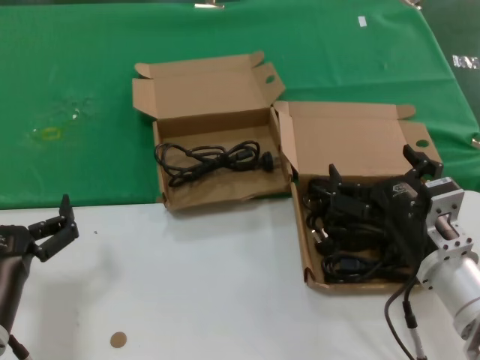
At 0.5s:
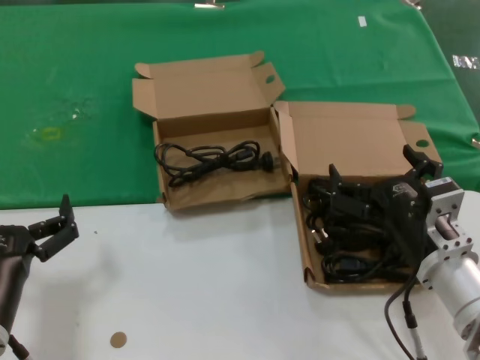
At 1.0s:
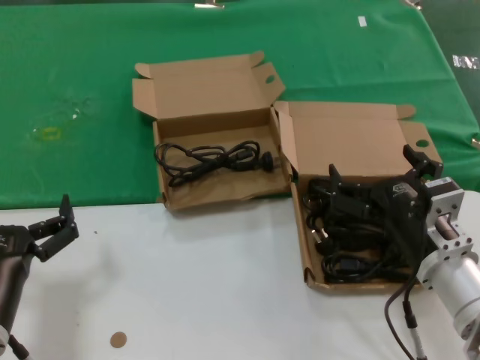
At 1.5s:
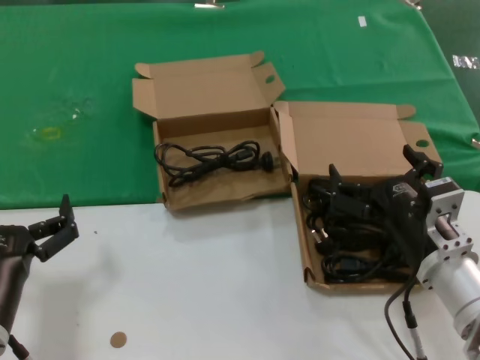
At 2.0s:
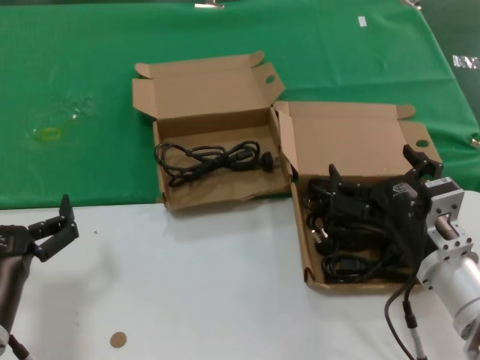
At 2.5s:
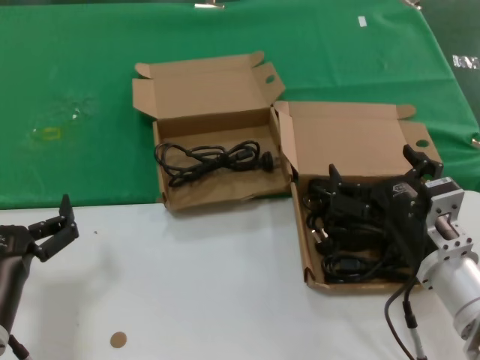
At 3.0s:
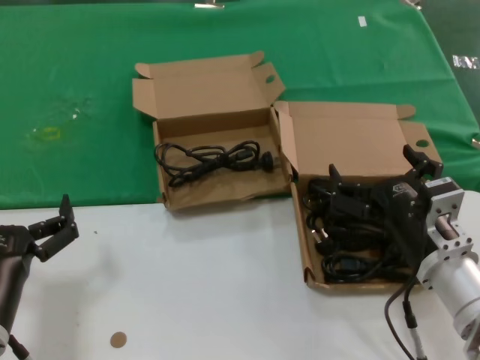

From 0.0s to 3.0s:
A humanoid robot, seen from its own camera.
Task of the whole recording: take the parts from the box containing them and put them into an empty box.
From 0.0s to 3.0s: Both hands stay put.

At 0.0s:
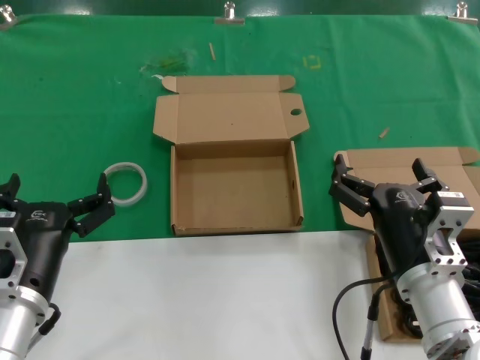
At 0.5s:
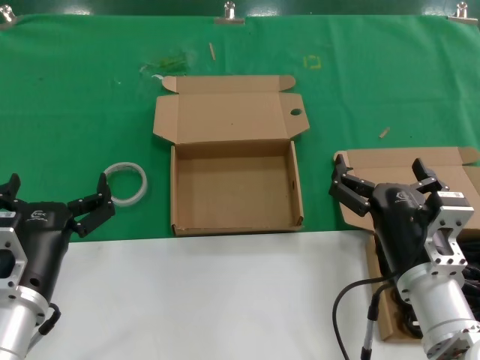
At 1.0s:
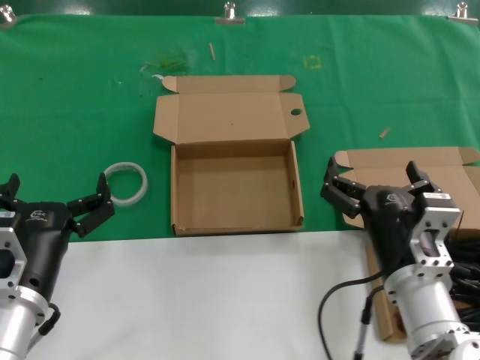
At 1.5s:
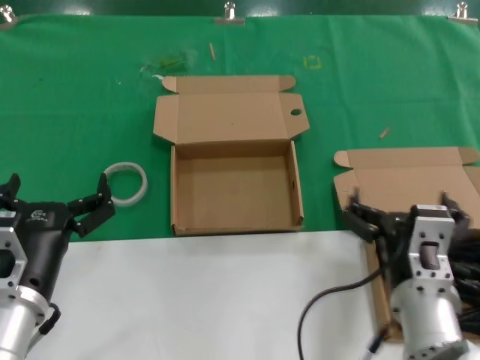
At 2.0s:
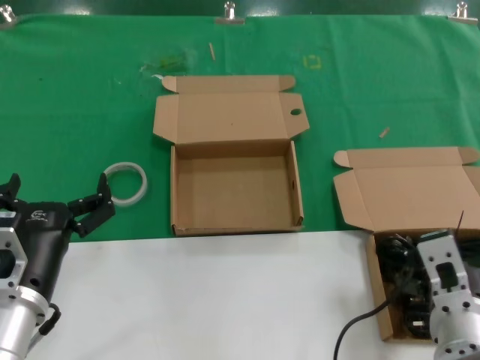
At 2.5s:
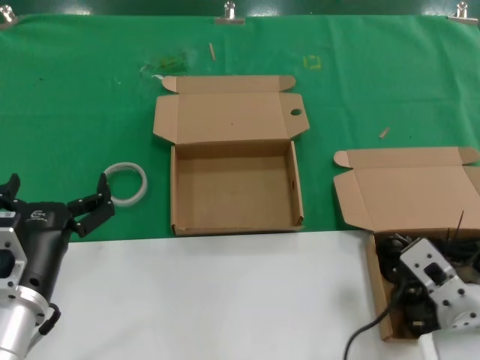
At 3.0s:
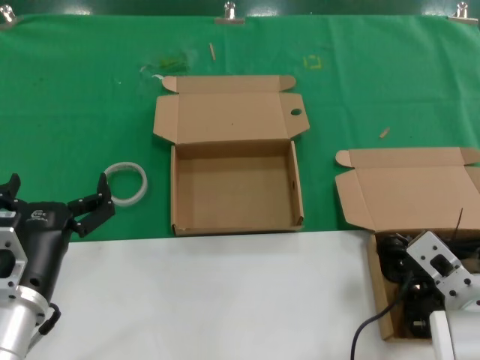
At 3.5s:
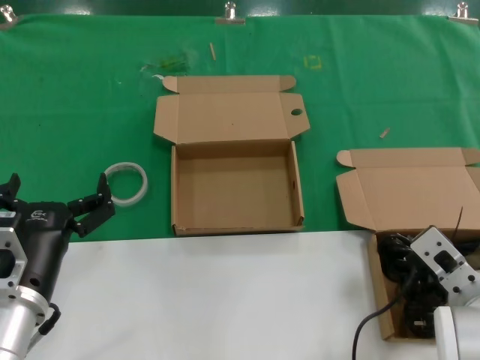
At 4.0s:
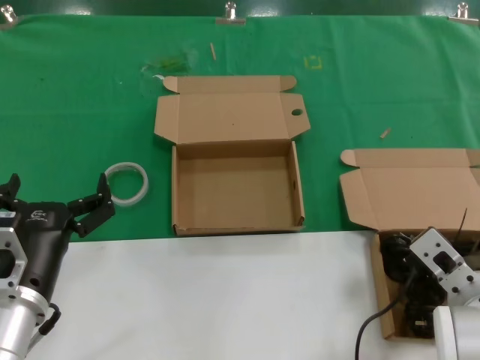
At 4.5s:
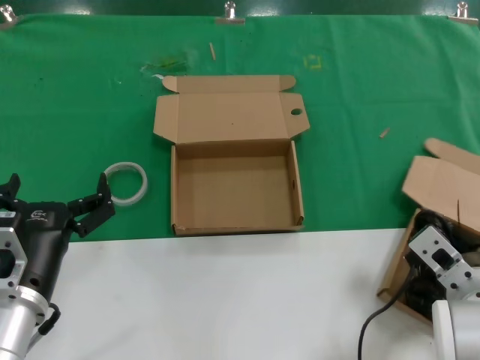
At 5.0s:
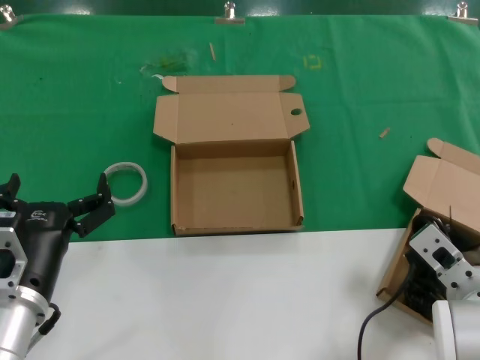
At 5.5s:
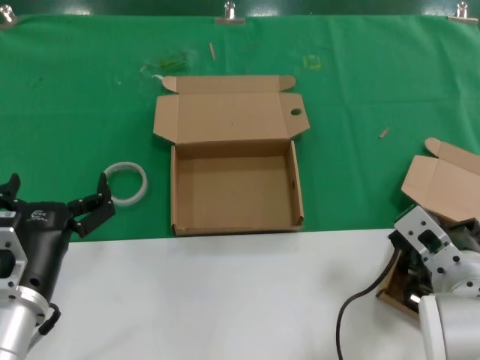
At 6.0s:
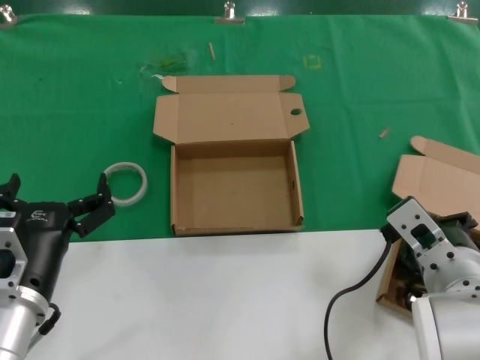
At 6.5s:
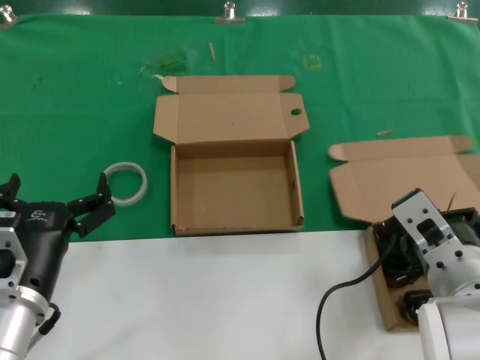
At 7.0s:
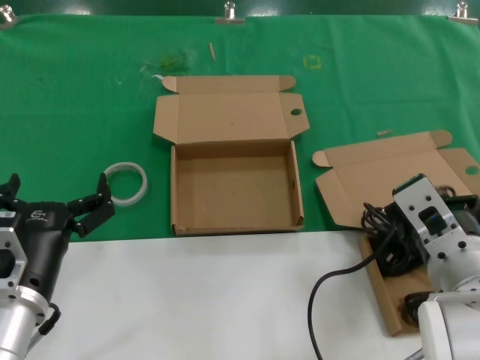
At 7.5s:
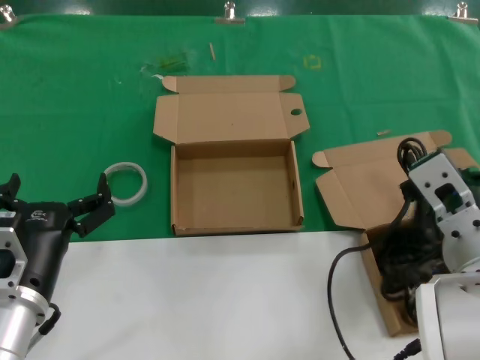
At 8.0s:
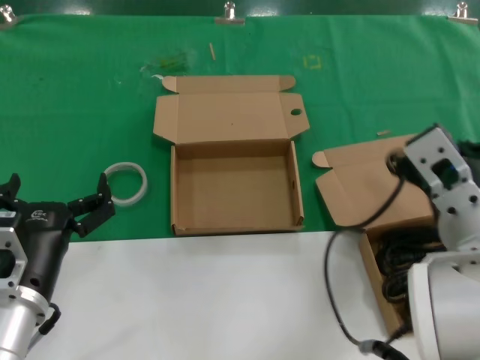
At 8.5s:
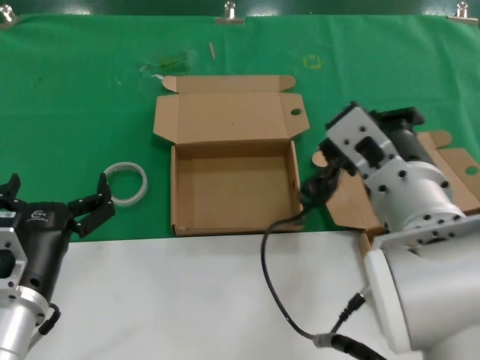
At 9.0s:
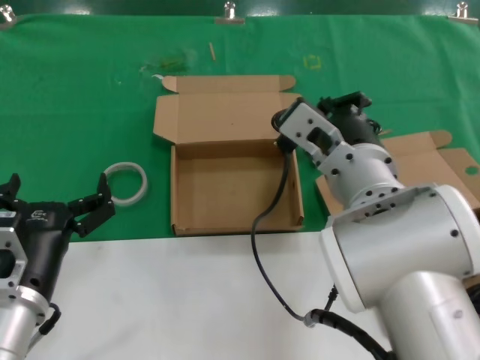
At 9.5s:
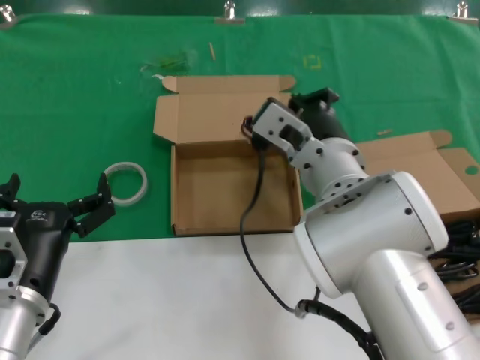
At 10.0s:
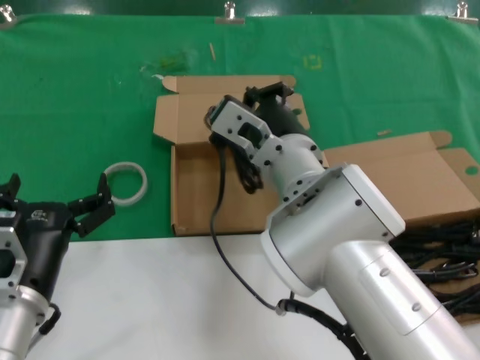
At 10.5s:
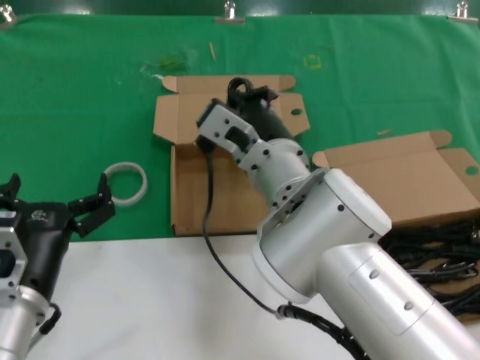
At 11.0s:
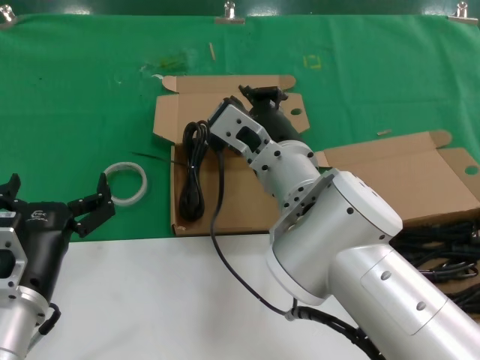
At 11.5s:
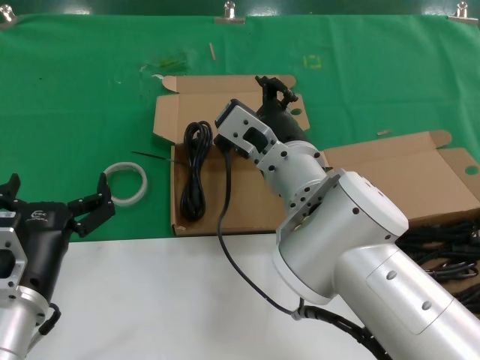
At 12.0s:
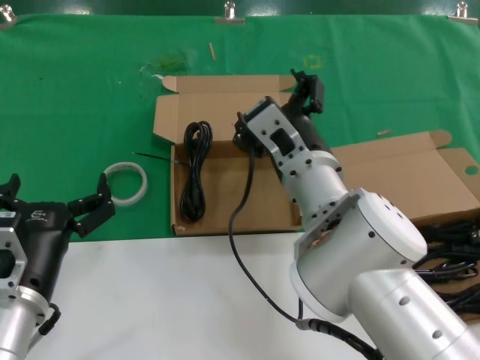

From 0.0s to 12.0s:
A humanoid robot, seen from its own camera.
Task of the whole recording: take the parts from the box containing them and put them into an empty box.
Step, from 0.0s to 4.5s: Grasp the data cable.
Step, from 5.0s to 10.5s: Place the data cable in the another box.
From 2.0s to 4.0s: The right hand changes place by approximately 5 cm.
From 4.0s to 6.0s: The right hand ends up about 5 cm from where it was.
From 6.0s to 8.0s: The right hand shifts approximately 10 cm upward.
From 8.0s to 10.0s: The right hand travels to the left and forward by approximately 15 cm.
From 10.0s to 12.0s: The hands make only small movements.

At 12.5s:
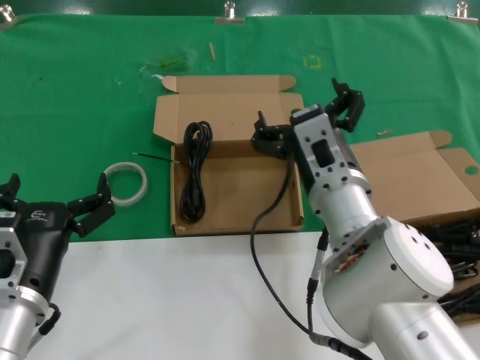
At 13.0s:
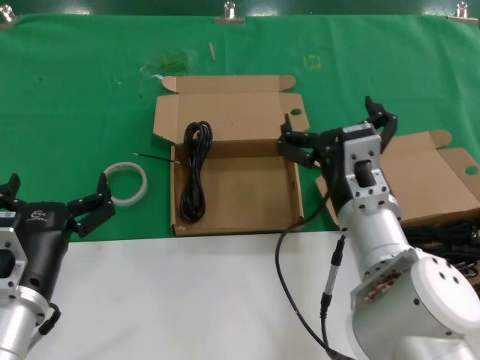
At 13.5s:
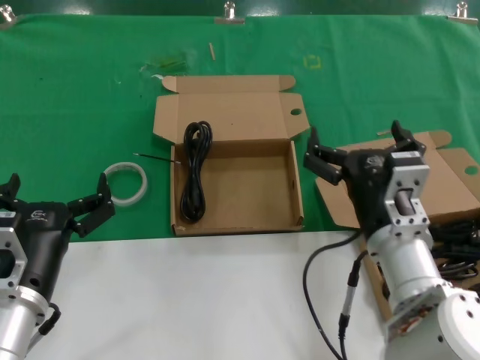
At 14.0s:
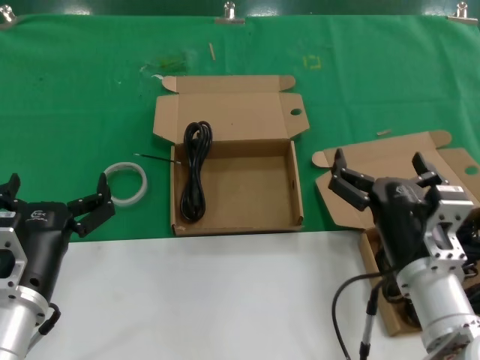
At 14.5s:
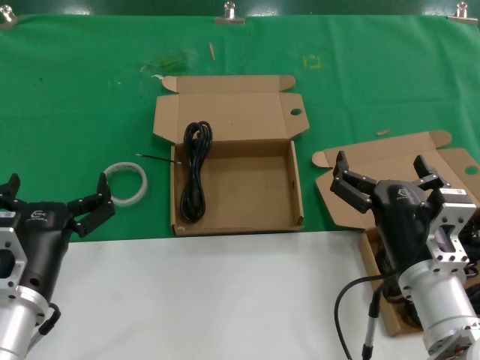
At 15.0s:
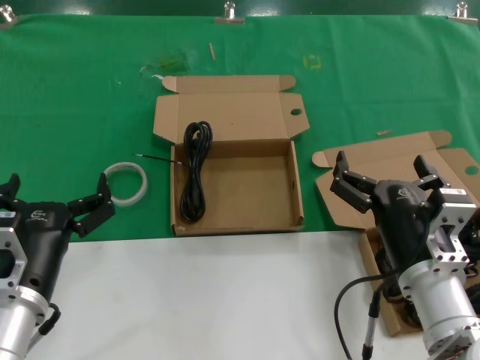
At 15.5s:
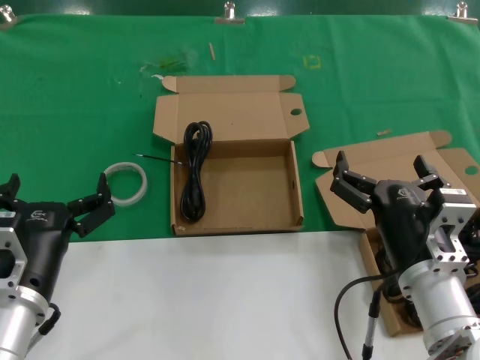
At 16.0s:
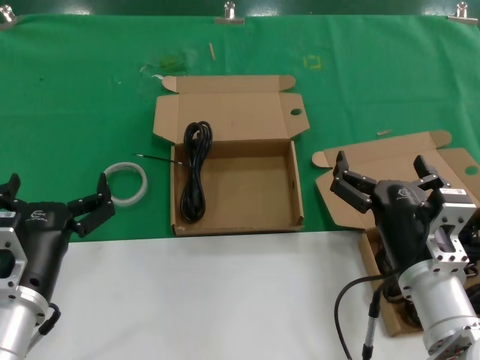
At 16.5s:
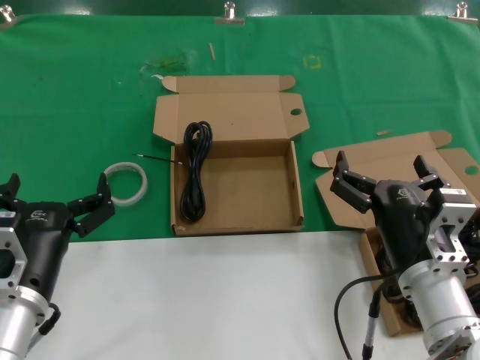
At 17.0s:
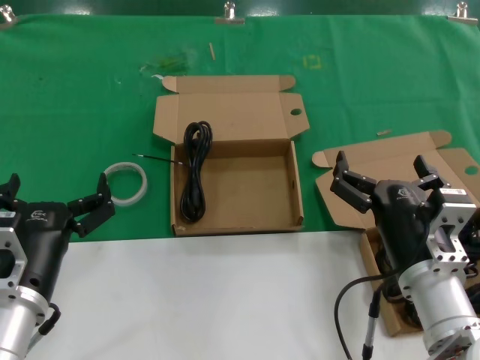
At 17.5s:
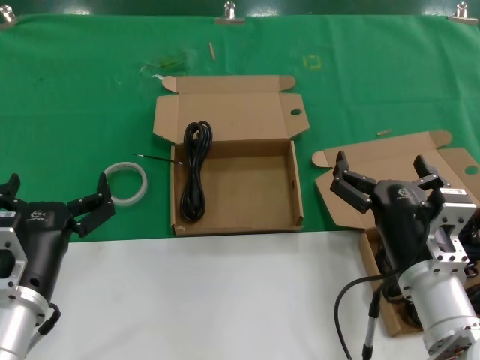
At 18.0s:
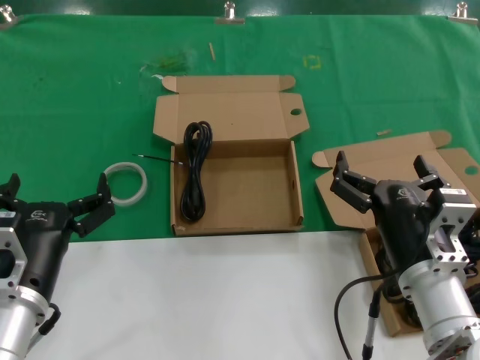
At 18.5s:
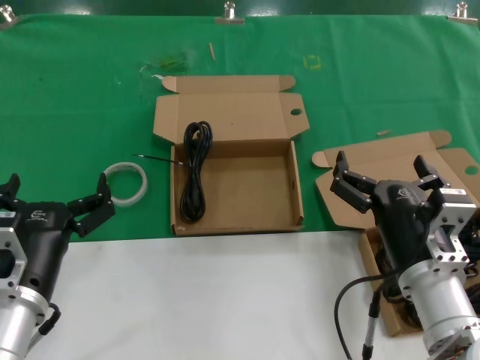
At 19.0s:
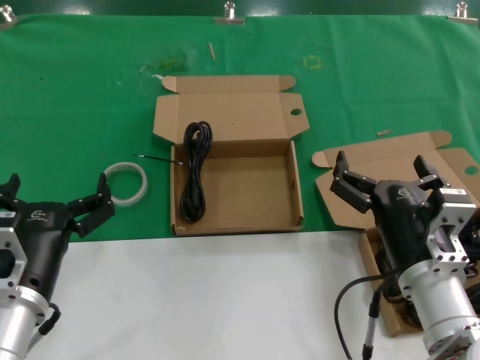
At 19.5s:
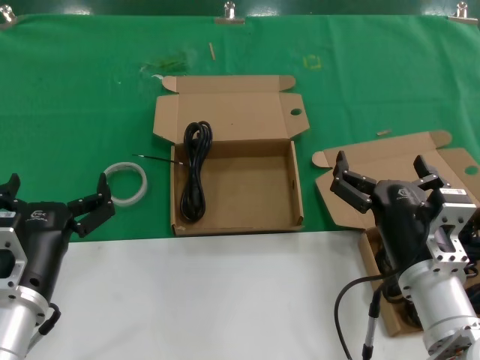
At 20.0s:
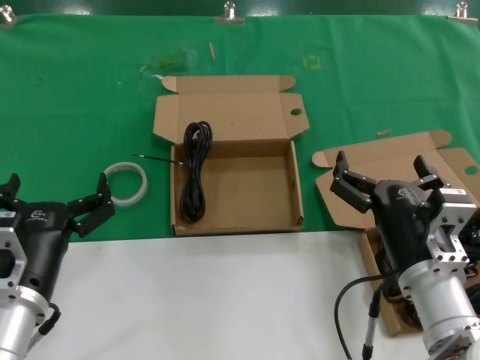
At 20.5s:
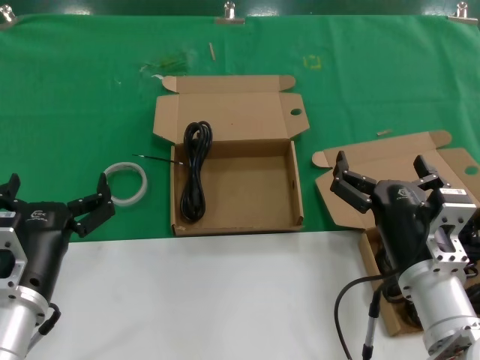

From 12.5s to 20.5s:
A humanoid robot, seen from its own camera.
Task of the whole recording: take the parts from the box containing them and put them into an empty box.
From 12.5s to 14.5s: The right hand heads to the right, backward and downward, covering approximately 15 cm.
From 14.5s to 20.5s: Both hands stay about where they are.

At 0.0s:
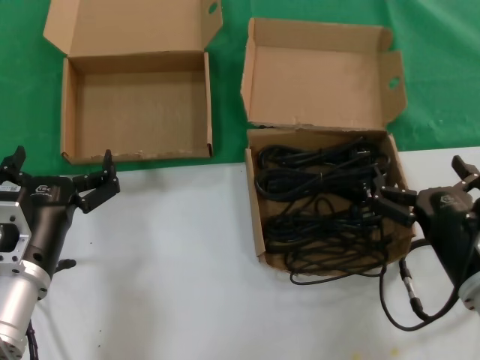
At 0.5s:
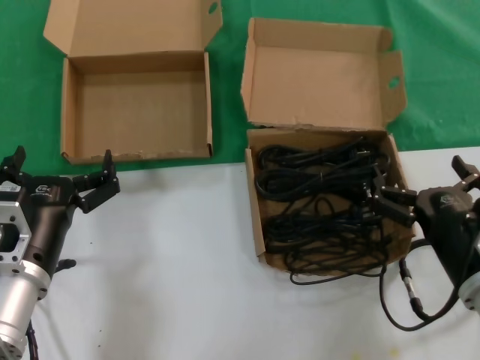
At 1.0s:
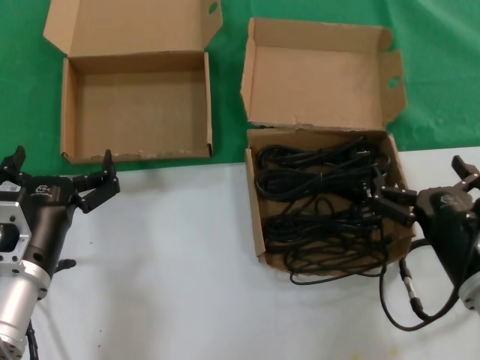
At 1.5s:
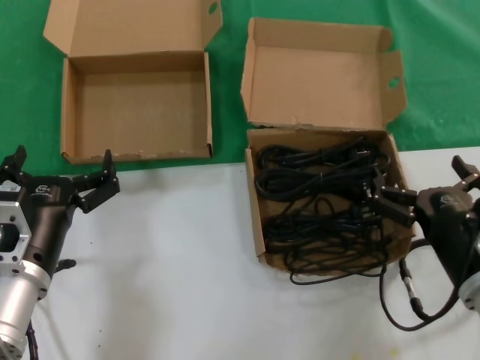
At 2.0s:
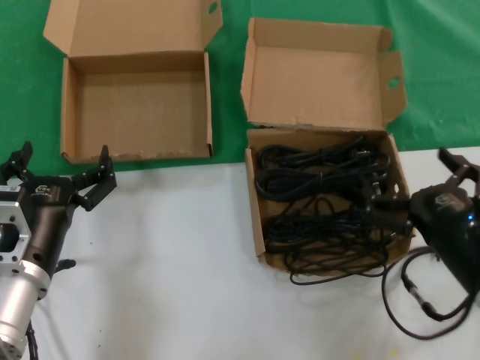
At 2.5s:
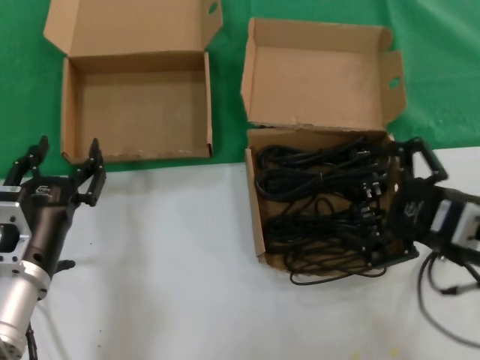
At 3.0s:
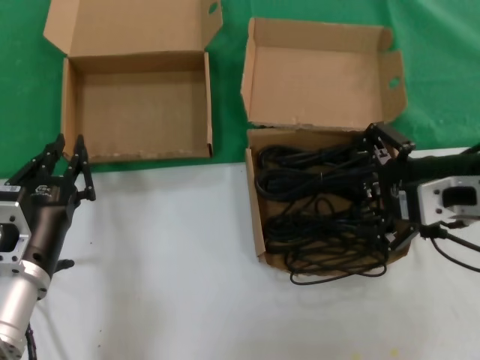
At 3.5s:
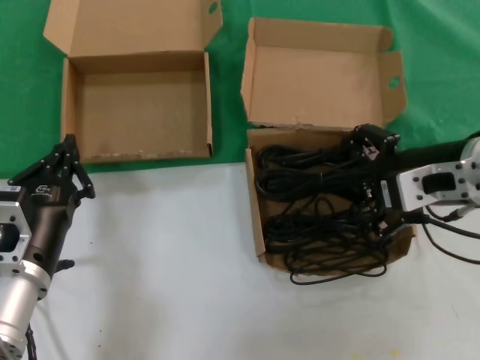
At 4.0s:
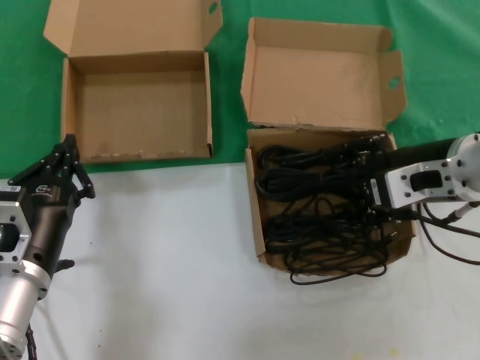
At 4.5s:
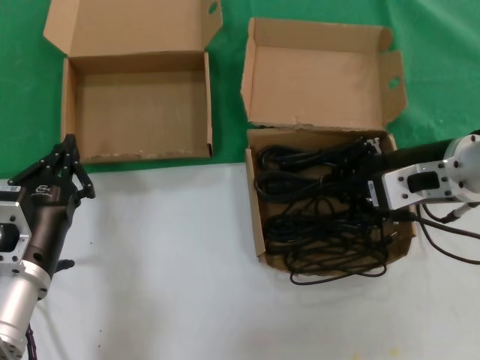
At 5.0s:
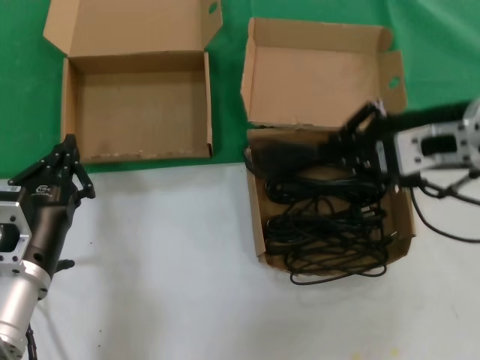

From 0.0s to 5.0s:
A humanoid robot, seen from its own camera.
Task of the whole recording: take the parts from the box containing them and put them into an empty box.
Step, from 0.0s to 4.5s: Grasp the data cable.
From 0.0s to 2.5s: The right hand shifts roughly 10 cm upward.
From 2.5s to 5.0s: The right hand moves upward and forward, approximately 15 cm.
